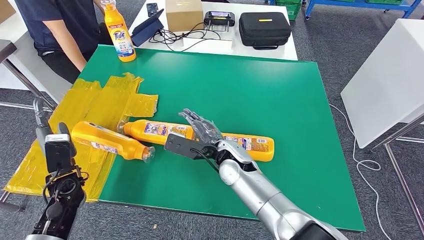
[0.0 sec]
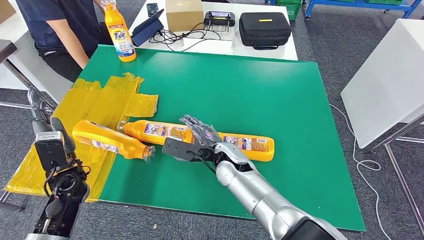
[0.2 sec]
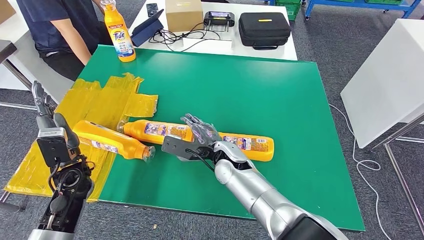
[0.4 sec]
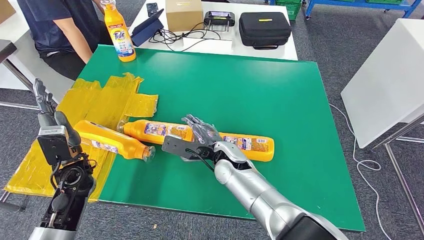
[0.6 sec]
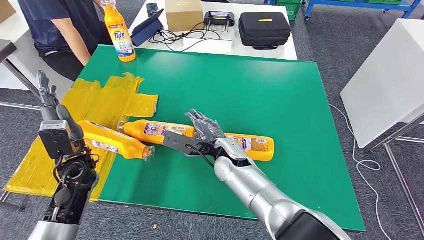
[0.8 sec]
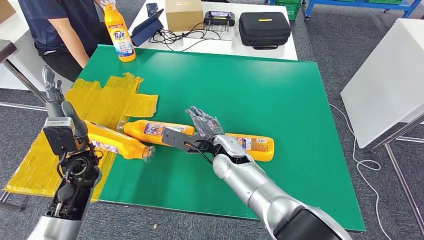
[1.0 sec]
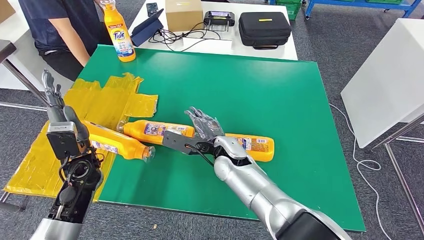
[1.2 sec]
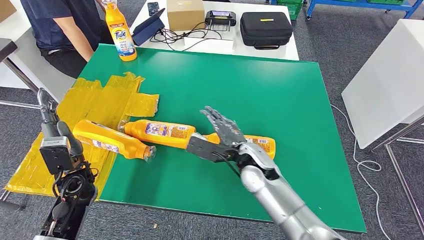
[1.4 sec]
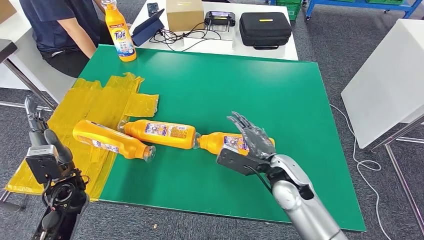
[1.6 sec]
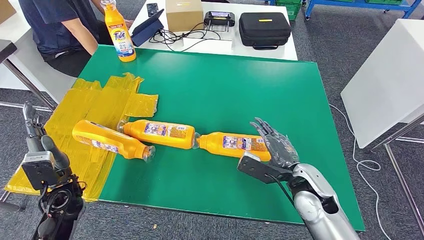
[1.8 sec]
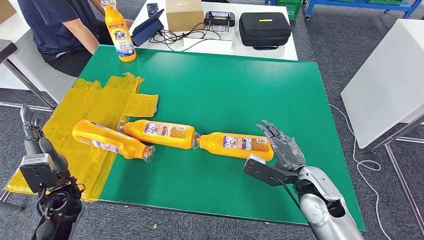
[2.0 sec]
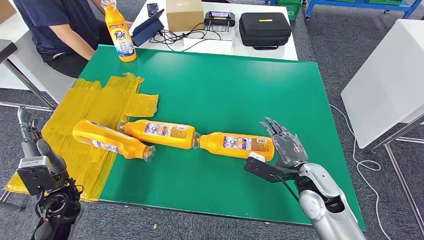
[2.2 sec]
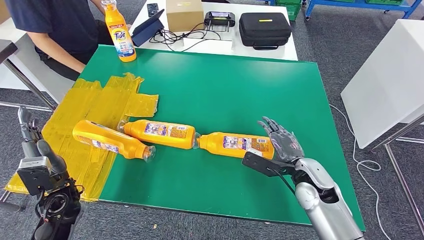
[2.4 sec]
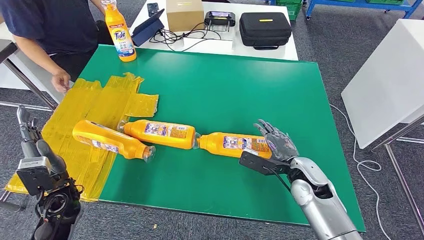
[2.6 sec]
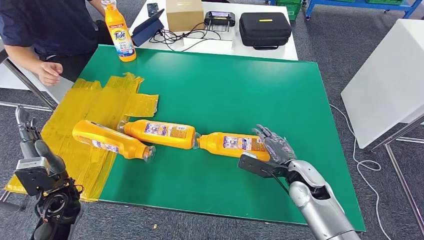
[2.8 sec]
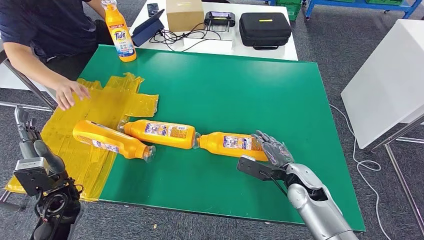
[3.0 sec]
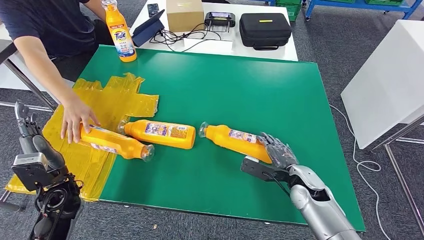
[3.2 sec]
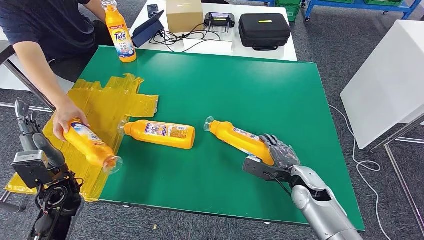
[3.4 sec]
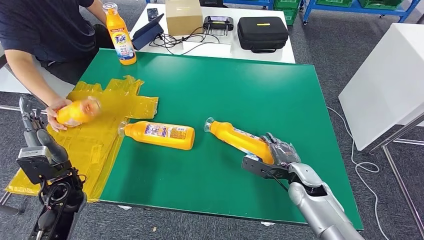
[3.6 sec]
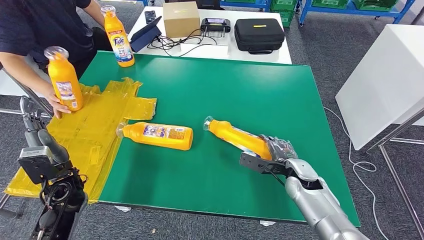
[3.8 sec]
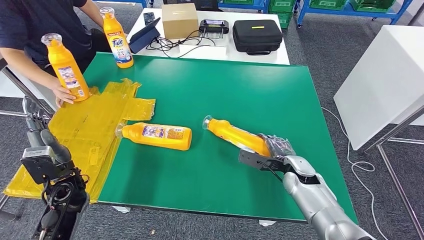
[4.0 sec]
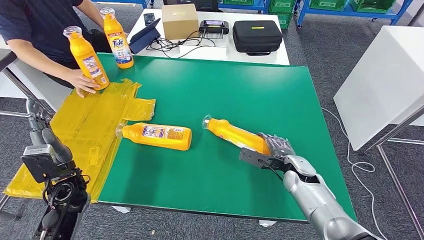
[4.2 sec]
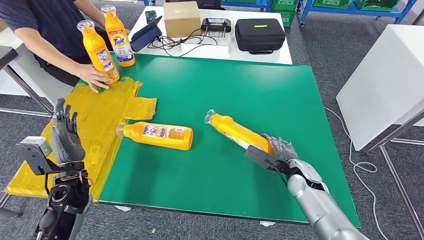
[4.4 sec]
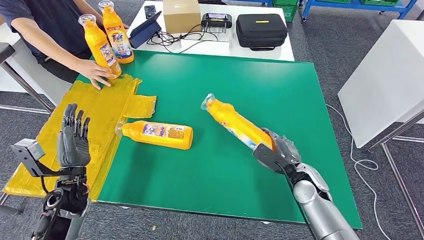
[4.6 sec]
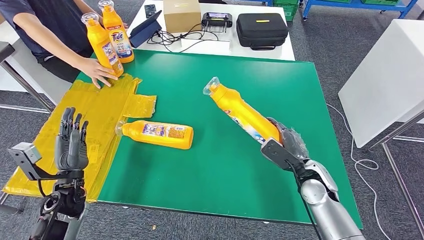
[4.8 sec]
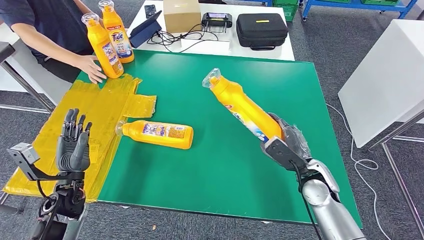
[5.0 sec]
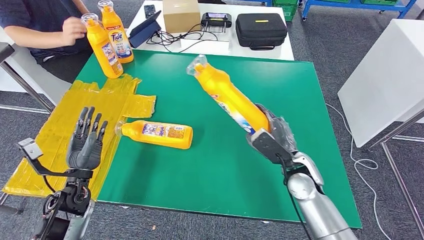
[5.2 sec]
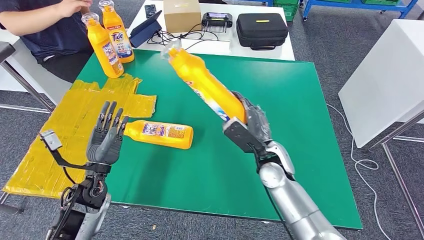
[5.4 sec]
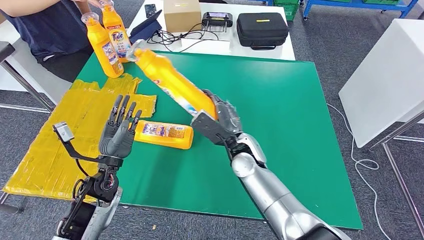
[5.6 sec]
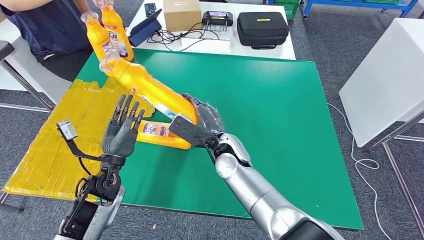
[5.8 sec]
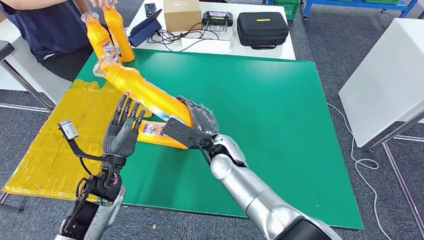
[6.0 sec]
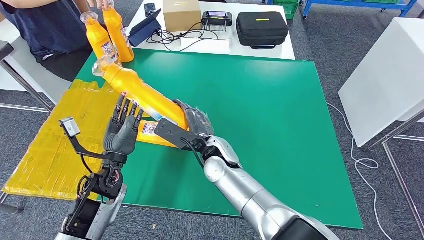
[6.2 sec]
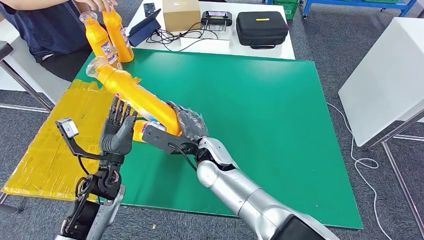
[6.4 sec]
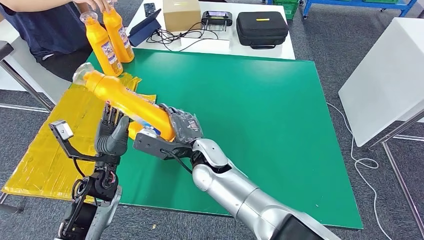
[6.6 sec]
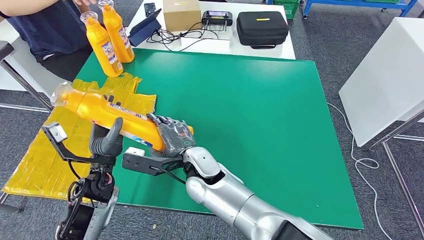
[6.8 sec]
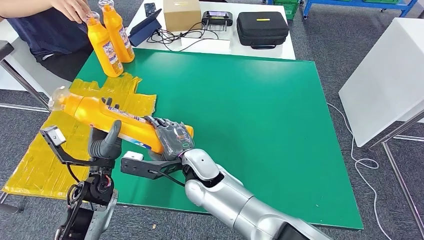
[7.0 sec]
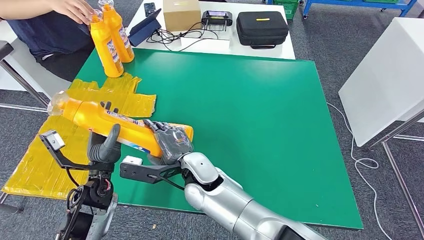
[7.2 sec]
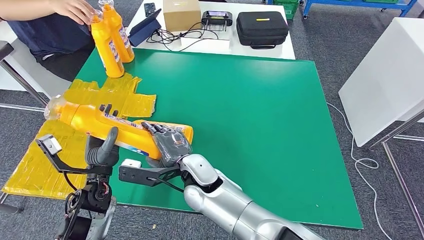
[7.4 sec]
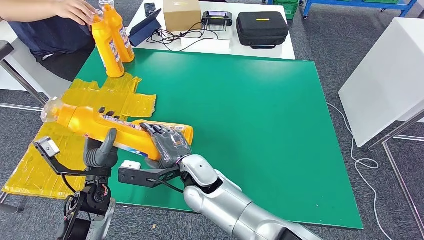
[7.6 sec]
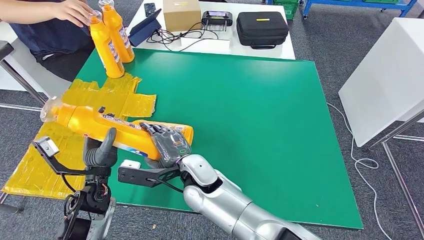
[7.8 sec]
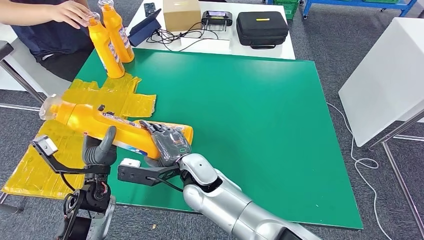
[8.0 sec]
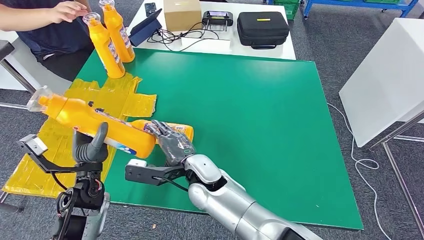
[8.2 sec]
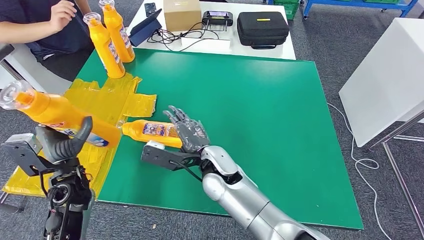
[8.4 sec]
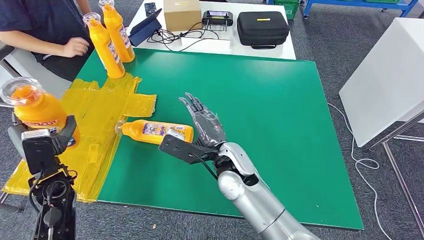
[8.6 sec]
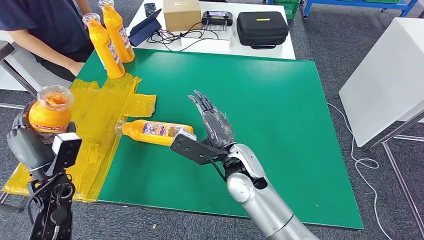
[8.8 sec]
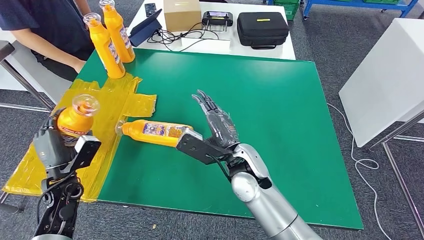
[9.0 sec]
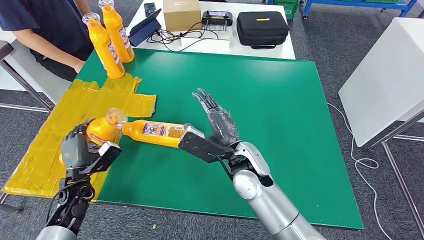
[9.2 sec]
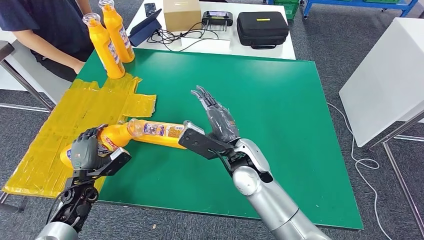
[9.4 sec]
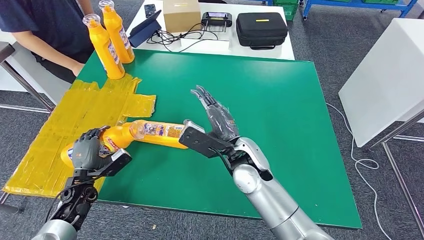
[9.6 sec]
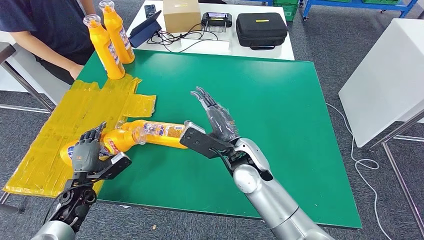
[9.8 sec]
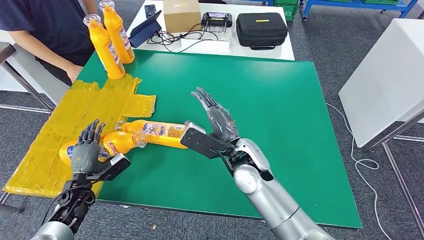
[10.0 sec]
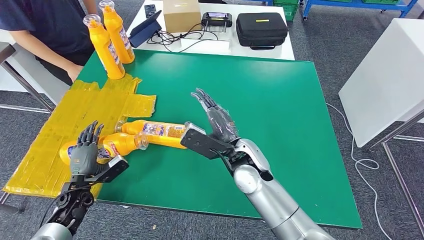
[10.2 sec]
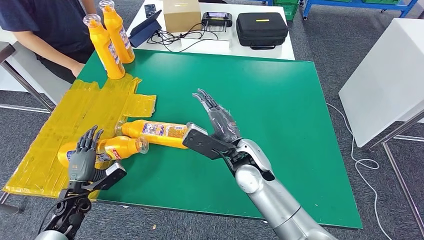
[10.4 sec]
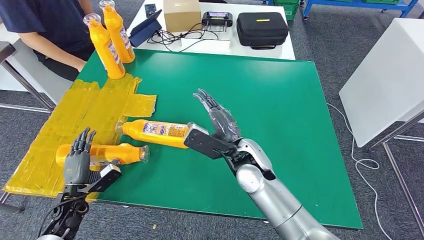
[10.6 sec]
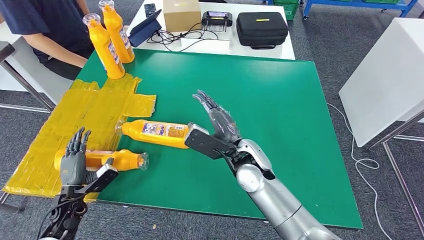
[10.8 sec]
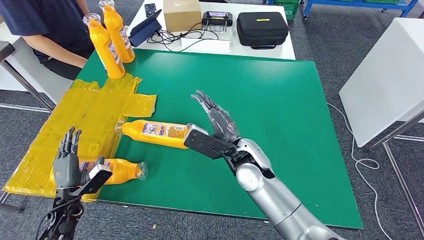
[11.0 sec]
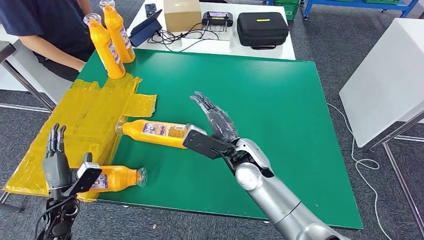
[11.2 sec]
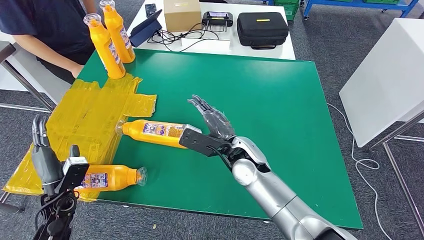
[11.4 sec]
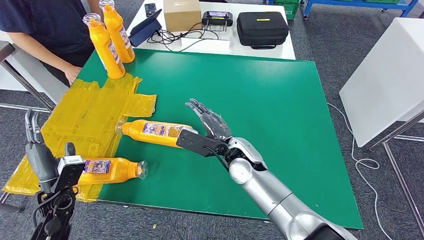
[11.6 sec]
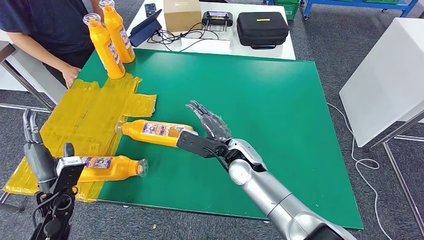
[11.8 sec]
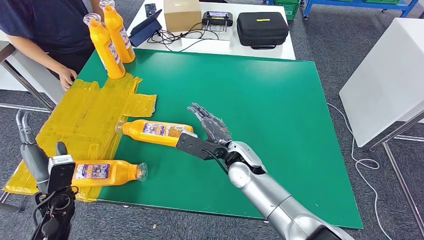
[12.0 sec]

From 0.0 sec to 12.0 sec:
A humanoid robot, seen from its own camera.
Step, from 0.0 sec to 7.0 sec: Pick up the bottle from the table.
Step, from 7.2 sec to 10.8 sec: Flip the bottle to face forward.
From 0.0 sec to 1.6 sec: The right hand heads to the right, covering some 15 cm.
From 1.6 sec to 3.0 sec: The right hand heads to the right and downward, covering some 10 cm.
From 9.0 sec to 10.4 sec: The left hand travels downward by some 10 cm.
From 10.4 sec to 12.0 sec: The left hand moves upward, some 10 cm.

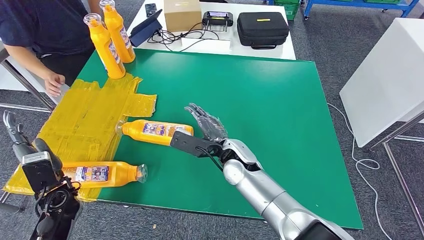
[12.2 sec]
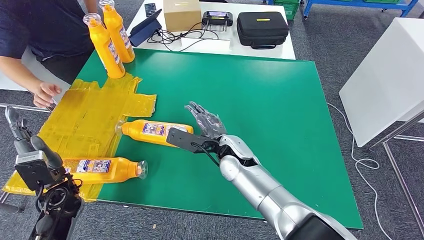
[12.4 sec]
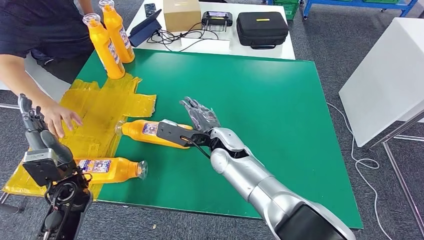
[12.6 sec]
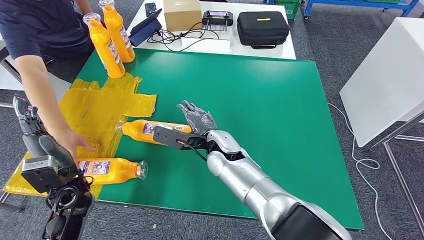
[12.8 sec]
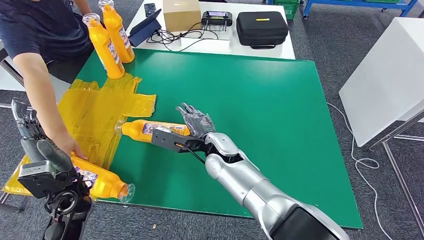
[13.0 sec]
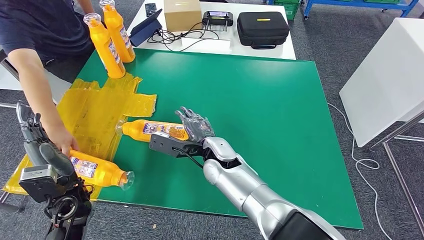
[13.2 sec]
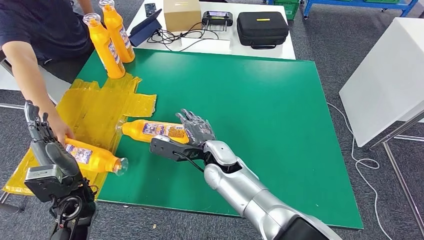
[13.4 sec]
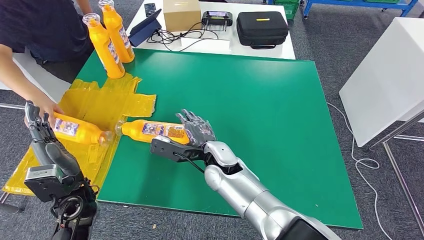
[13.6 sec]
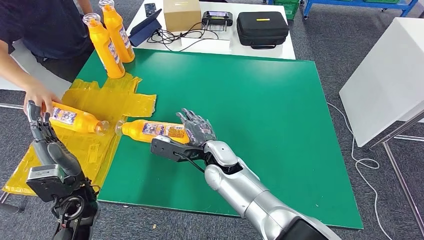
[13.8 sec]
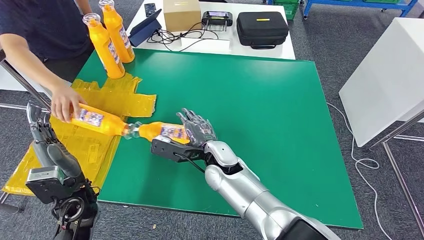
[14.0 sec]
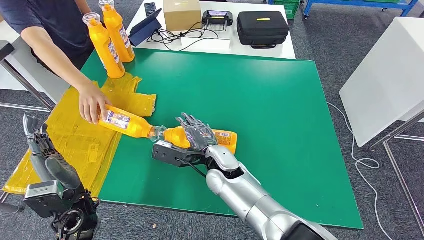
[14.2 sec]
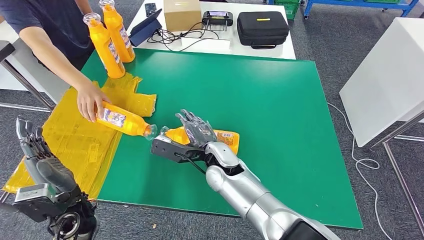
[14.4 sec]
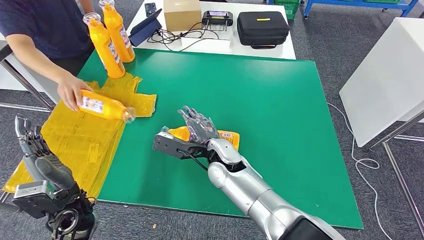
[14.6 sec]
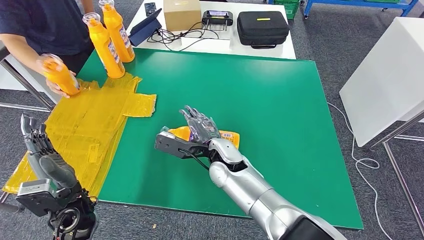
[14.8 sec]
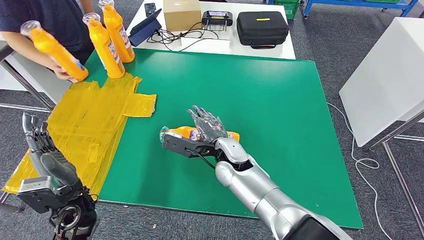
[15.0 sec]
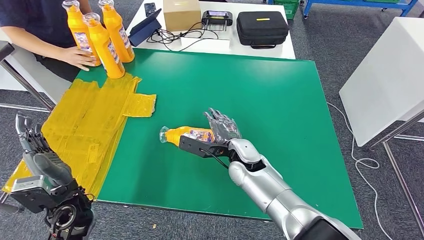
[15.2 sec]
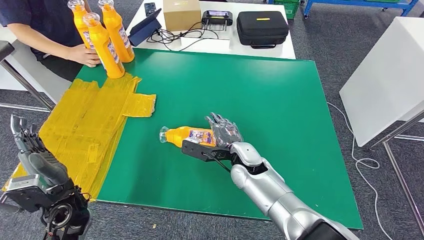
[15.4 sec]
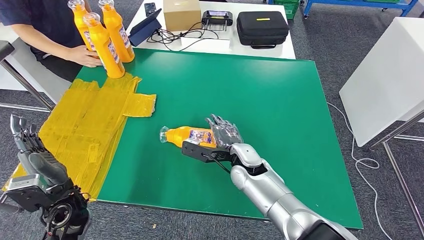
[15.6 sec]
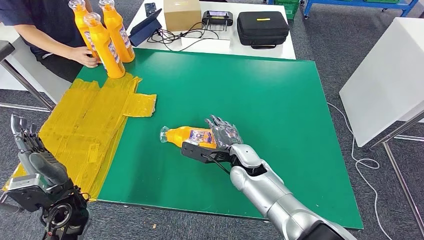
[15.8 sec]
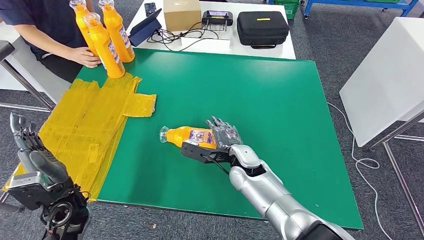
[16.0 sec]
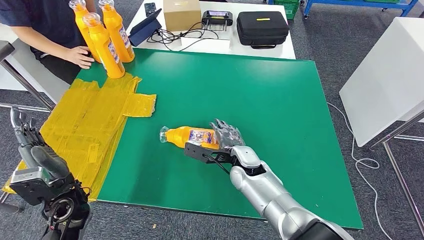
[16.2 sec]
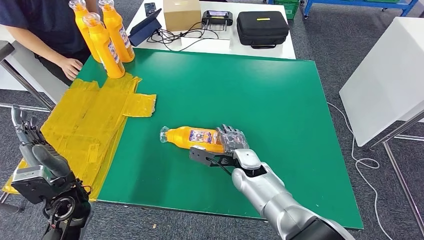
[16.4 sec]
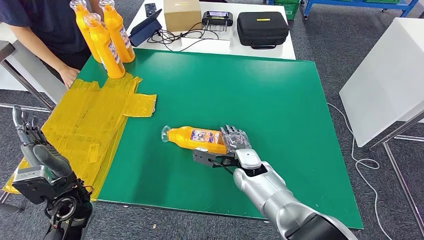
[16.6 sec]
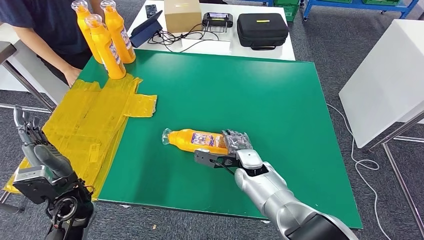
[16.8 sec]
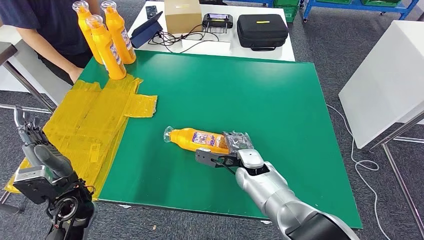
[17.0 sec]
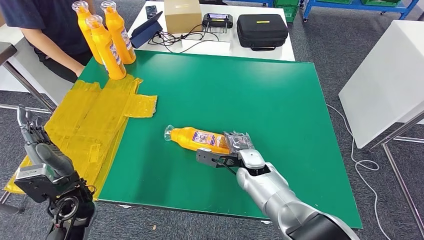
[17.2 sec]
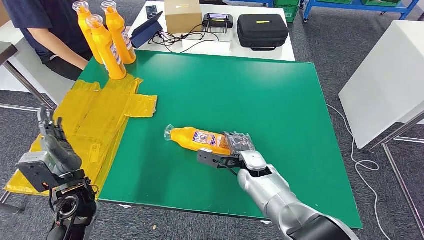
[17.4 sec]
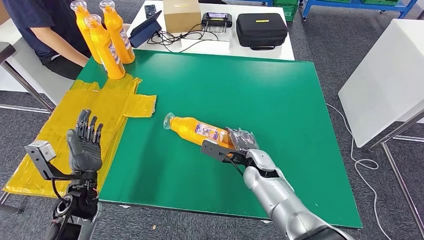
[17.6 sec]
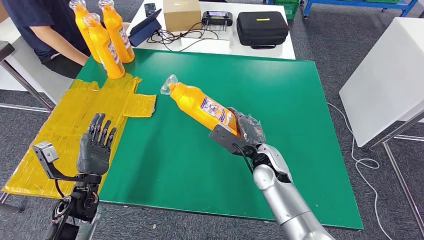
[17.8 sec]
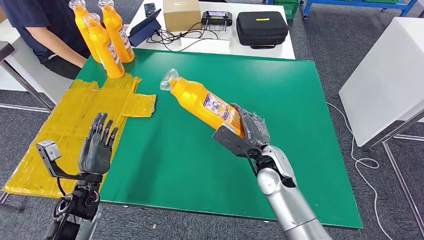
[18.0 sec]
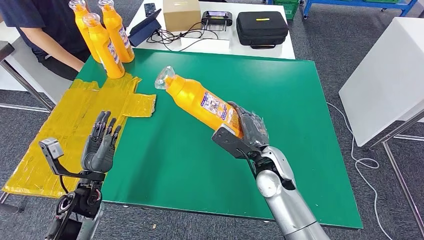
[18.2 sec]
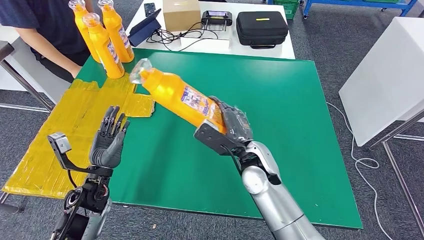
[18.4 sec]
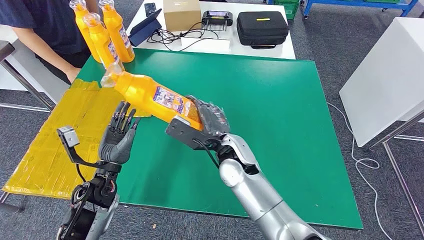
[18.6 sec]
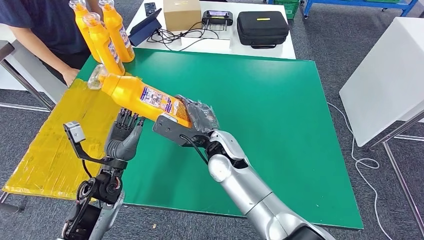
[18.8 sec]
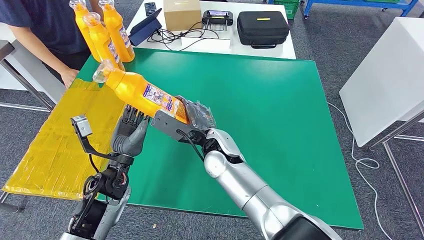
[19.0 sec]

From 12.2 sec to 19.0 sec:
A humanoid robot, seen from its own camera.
From 13.6 sec to 15.0 sec: The hands move only a little.
From 15.0 sec to 16.2 sec: The right hand moves some 5 cm.
